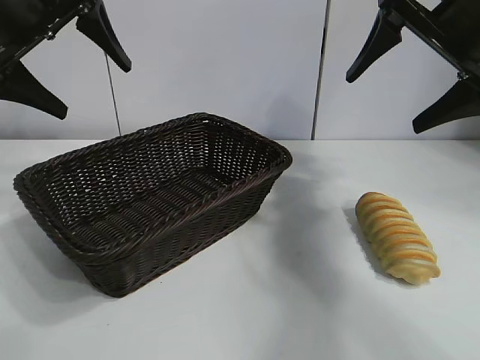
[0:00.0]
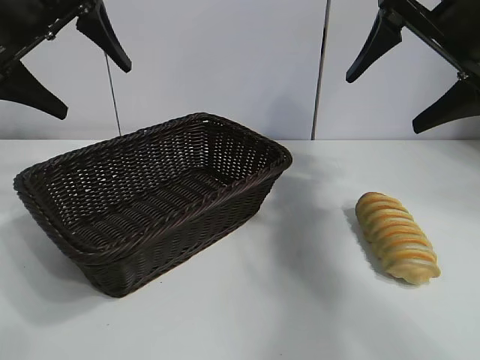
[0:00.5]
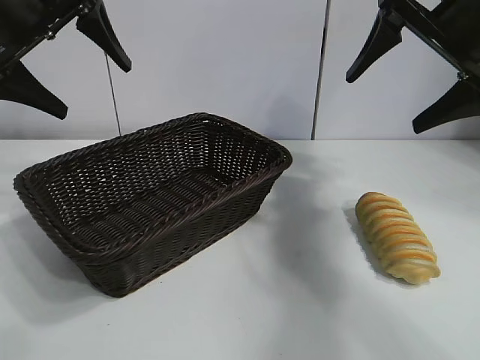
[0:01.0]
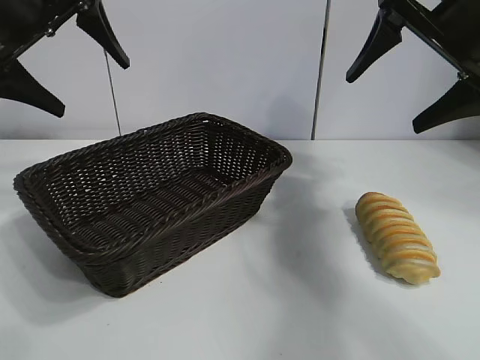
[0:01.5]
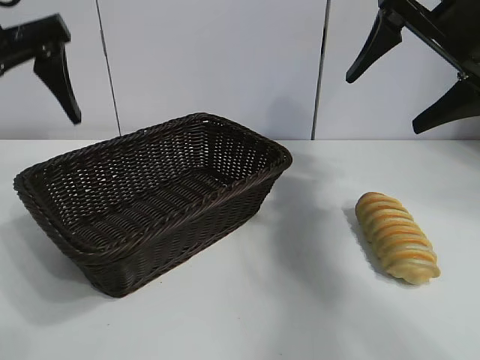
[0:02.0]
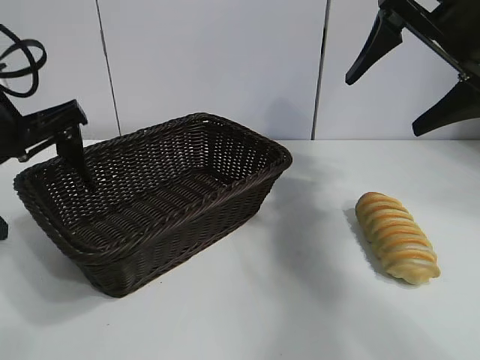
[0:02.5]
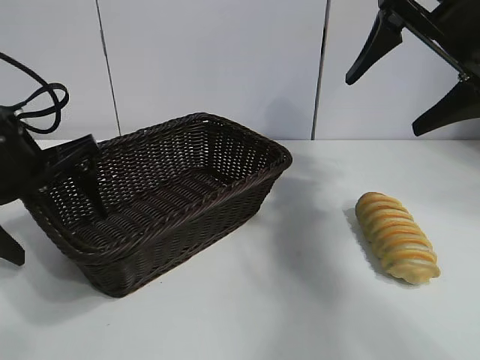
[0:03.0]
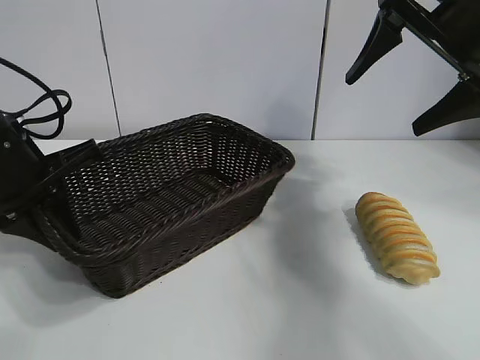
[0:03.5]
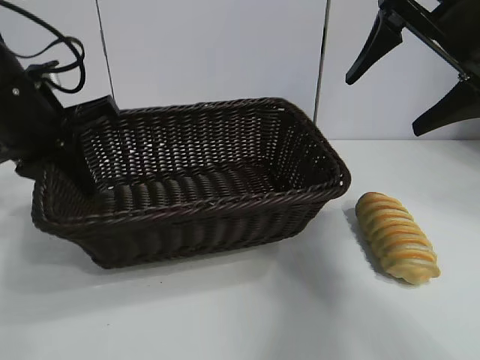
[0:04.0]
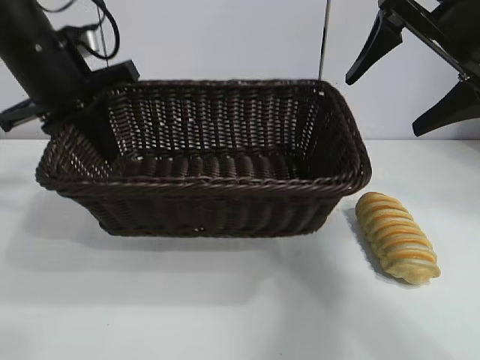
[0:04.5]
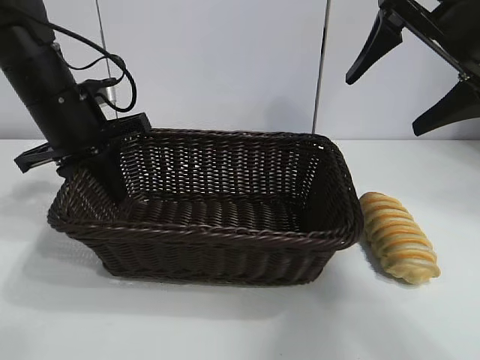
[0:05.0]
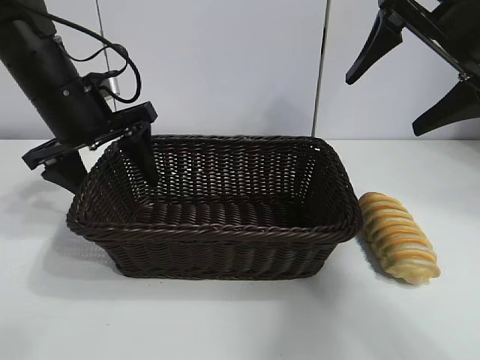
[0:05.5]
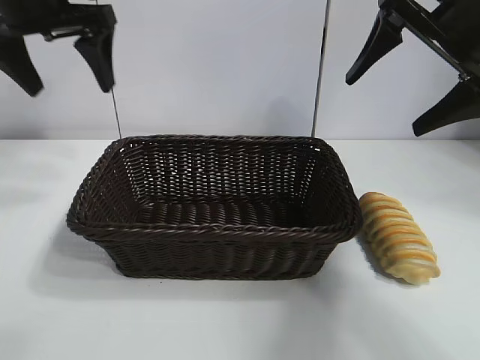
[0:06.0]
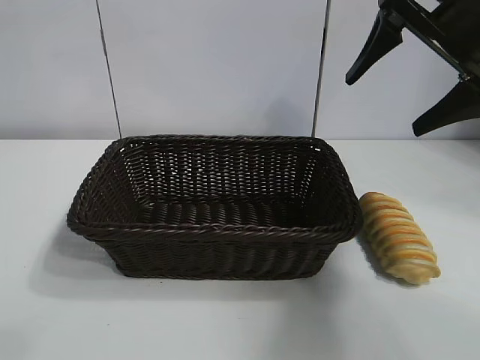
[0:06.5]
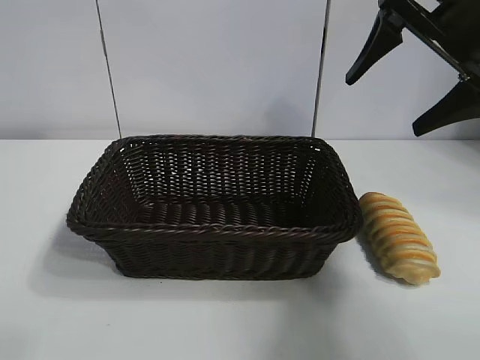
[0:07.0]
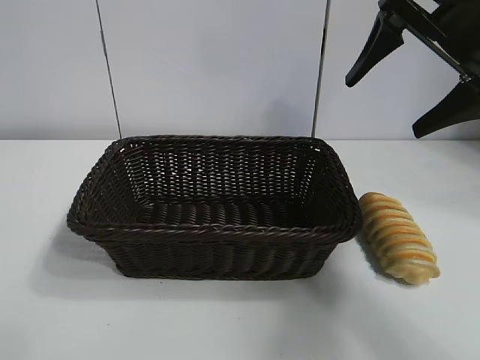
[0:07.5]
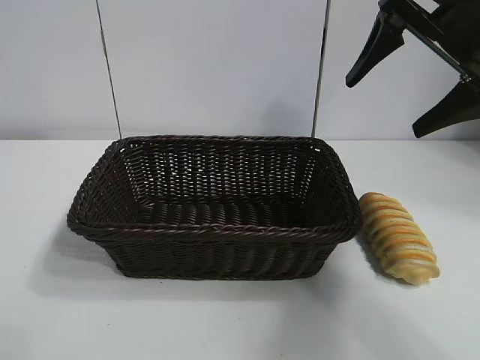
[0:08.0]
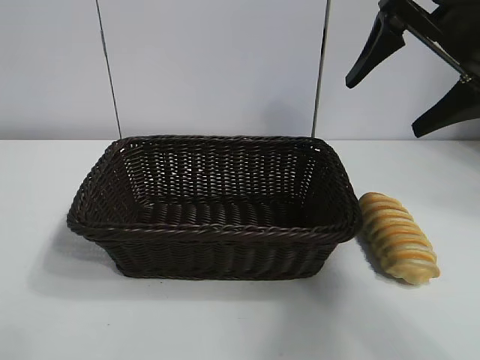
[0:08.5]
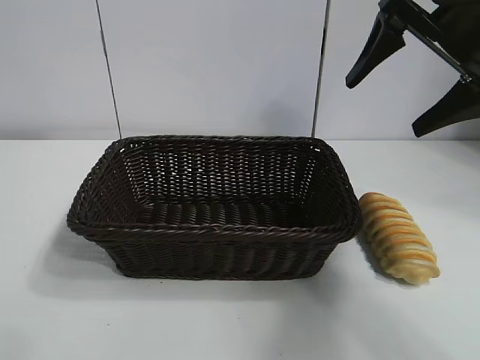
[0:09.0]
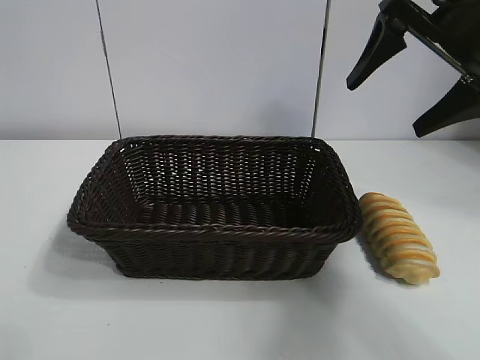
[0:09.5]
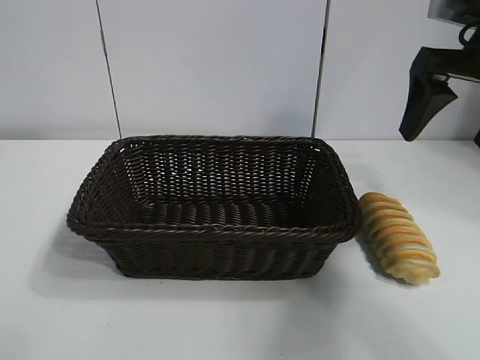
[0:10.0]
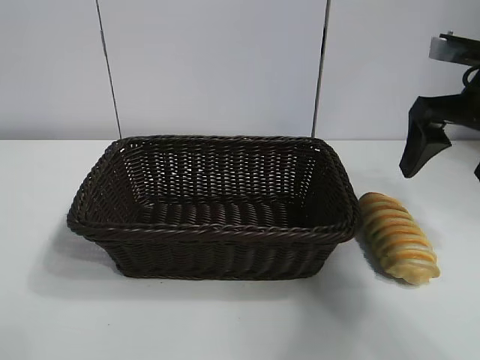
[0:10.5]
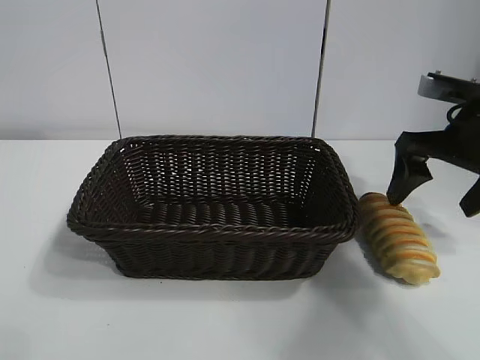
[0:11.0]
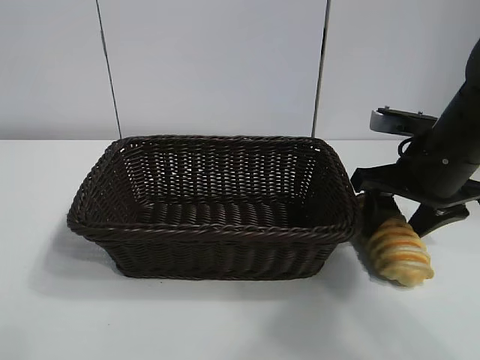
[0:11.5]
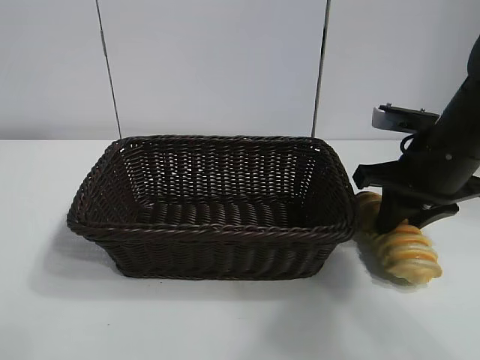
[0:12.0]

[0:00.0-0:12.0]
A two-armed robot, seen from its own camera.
Task of the whole recording: pick up the long bread and put it into the basket.
Step, 0:02.0 to 0:03.5: Grasp the basket with the left gripper.
Step, 0:04.0 to 0:05.5: Place the basket in the center of the table with the left gripper.
Step, 0:06.0 to 0:11.5: Grasp the long bread with right gripper.

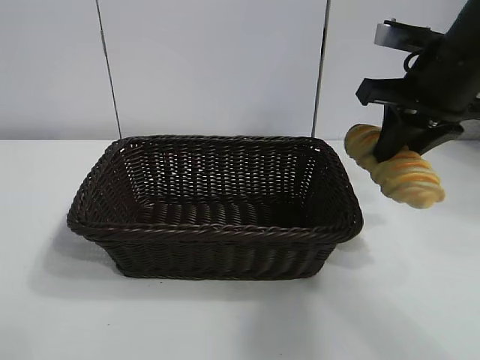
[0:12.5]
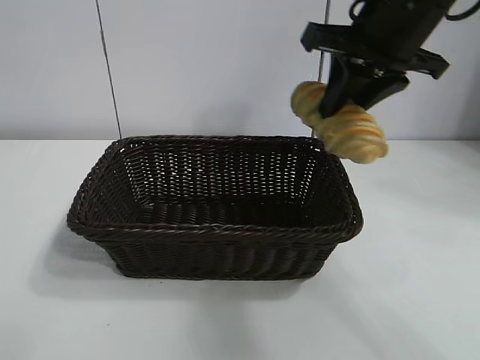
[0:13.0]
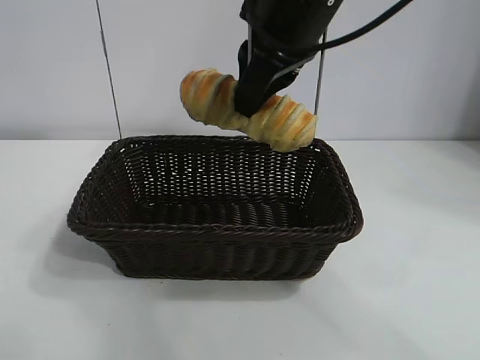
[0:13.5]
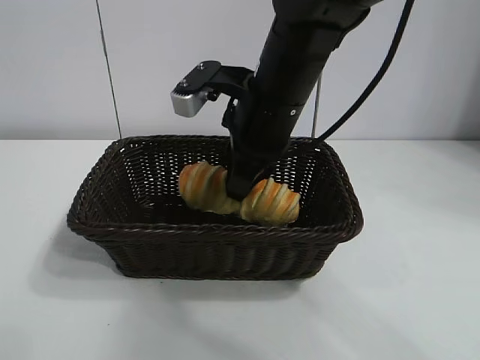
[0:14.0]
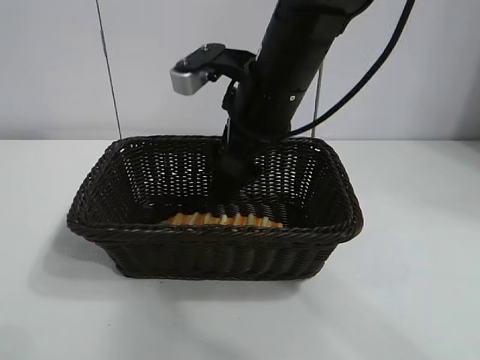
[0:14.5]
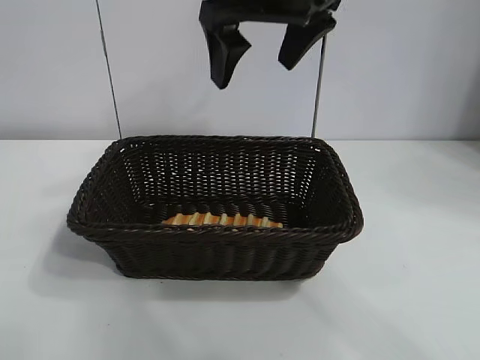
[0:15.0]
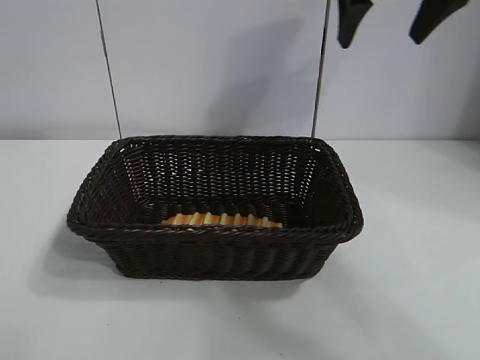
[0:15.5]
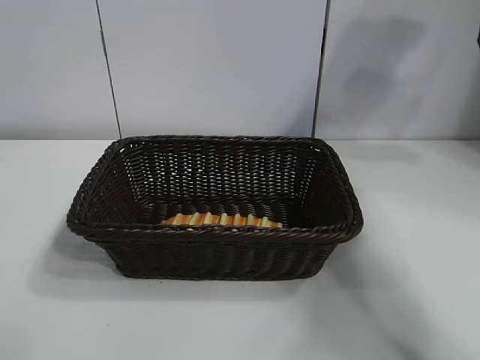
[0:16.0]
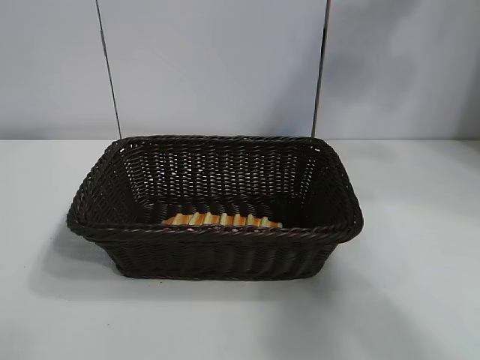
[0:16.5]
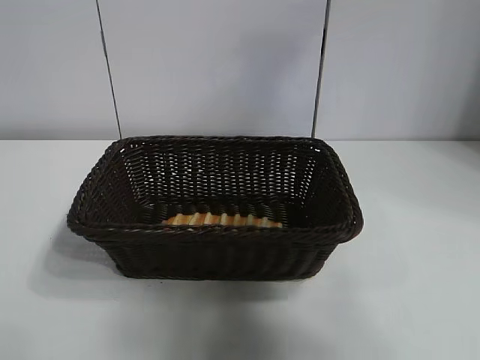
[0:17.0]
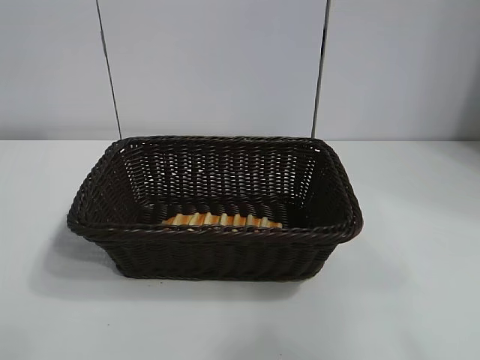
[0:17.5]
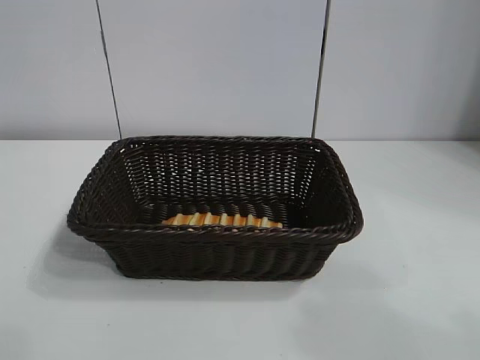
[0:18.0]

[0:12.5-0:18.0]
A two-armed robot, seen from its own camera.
Task of the whole recording: pick up the long bread and put it into the basket.
Step, 0:12.5 to 0:14.0: Place the long bread in the basket with right gripper.
